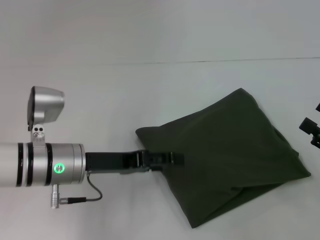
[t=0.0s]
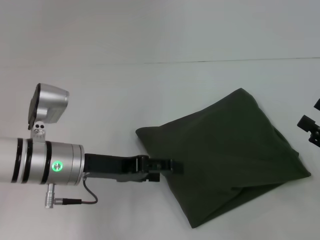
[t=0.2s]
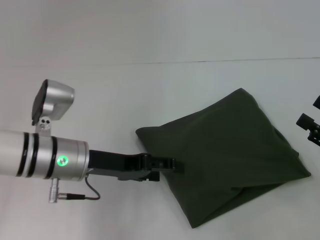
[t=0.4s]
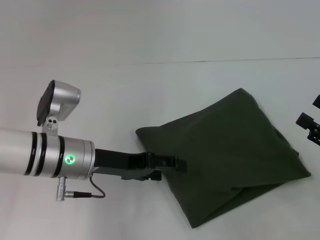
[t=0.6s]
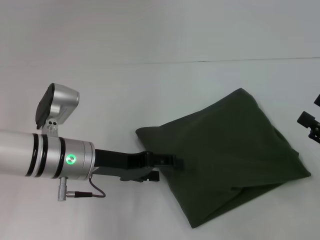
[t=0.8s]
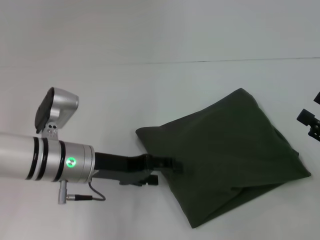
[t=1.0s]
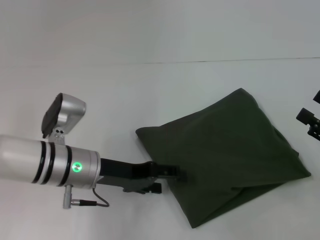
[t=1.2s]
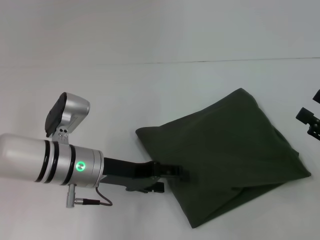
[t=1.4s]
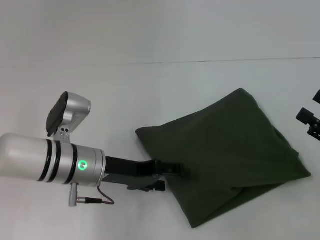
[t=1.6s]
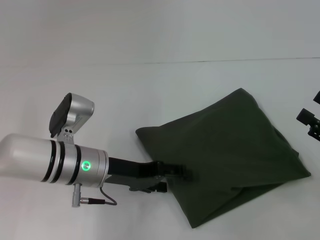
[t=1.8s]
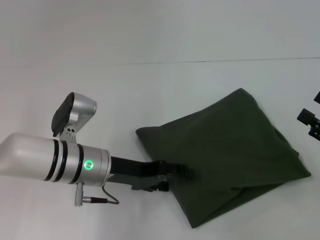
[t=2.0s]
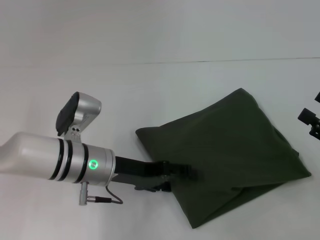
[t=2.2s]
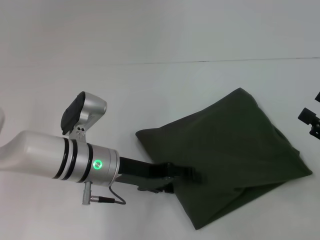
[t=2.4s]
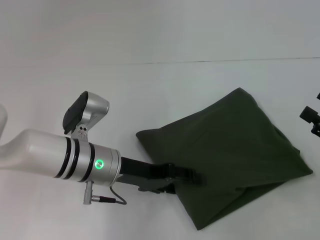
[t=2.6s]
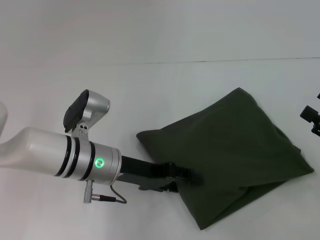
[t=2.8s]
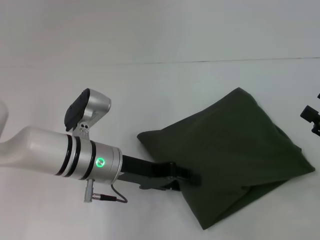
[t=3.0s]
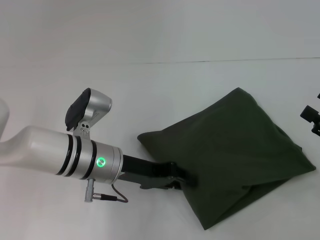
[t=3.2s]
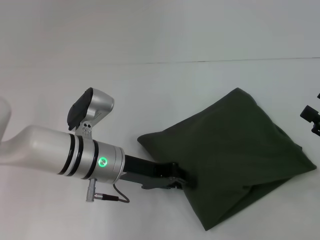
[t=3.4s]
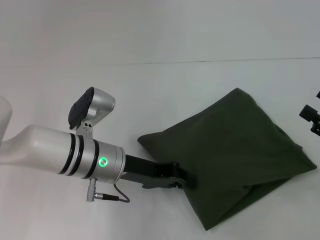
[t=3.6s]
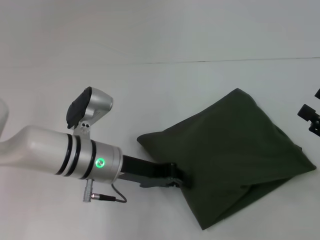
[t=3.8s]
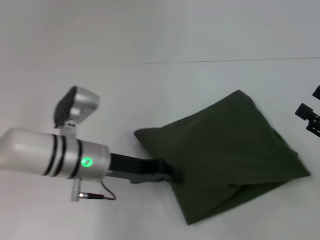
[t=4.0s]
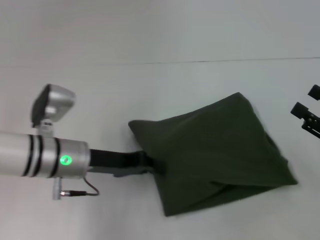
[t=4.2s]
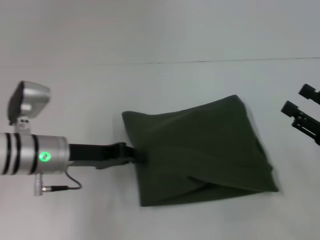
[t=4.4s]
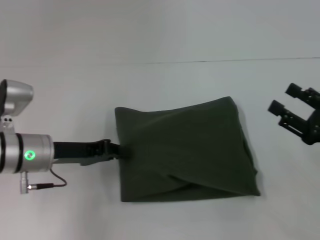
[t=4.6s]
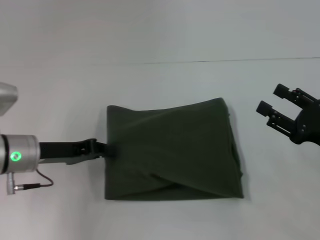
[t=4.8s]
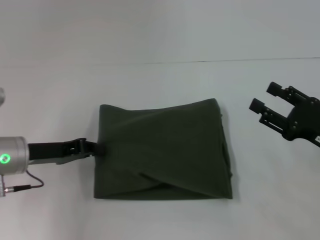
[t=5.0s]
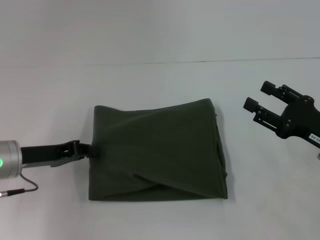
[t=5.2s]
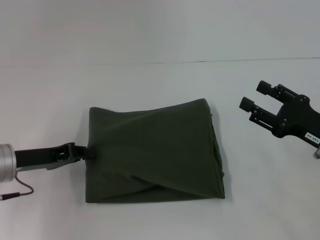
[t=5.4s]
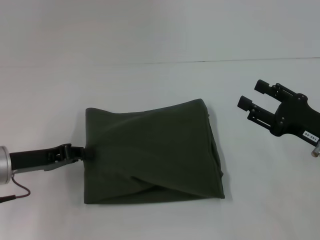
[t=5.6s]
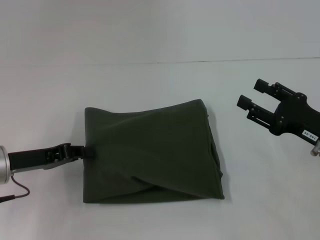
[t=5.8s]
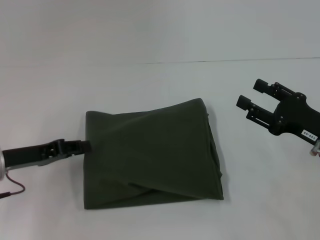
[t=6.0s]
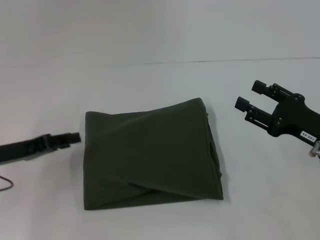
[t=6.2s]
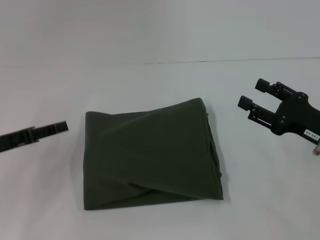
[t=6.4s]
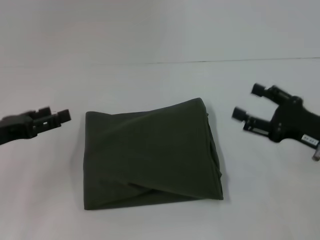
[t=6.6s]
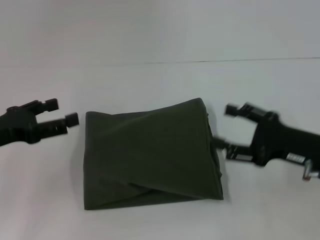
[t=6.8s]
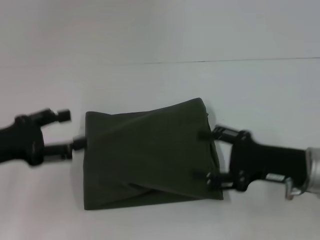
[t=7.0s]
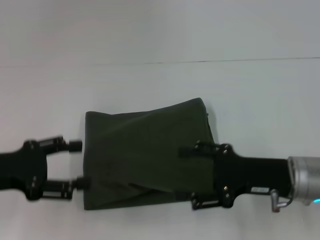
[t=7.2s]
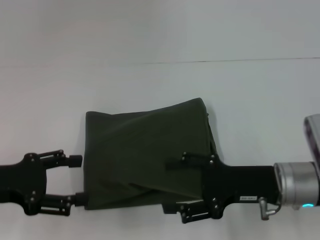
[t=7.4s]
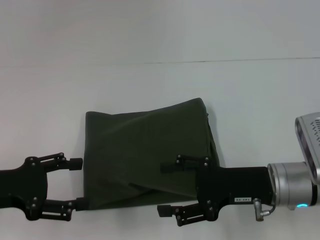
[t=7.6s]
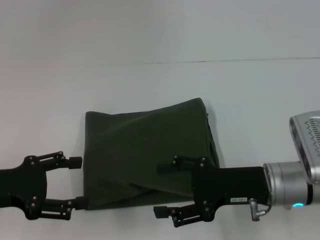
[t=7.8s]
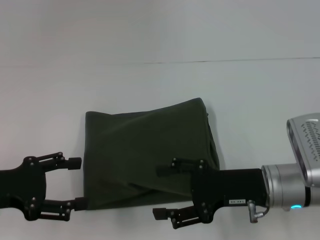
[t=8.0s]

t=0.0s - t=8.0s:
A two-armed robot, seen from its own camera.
t=0.0s - t=1.6s: The grippers make only small movements.
t=1.6s - t=3.2s: The left gripper closes up.
t=3.2s - t=4.8s: The right gripper shifts by roughly 5 cm. The left gripper travels to the left by about 10 cm, and closes.
t=4.8s - t=6.4s: The left gripper goes approximately 10 cm to the left, and opens up.
t=6.4s - t=8.0s: The left gripper travels backward by approximately 5 cm, and opens up; the right gripper heads to the left, covering roughly 10 cm.
